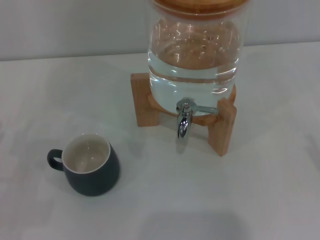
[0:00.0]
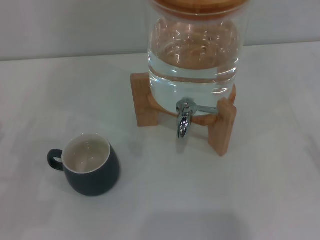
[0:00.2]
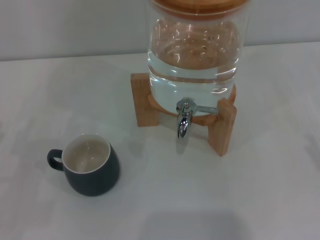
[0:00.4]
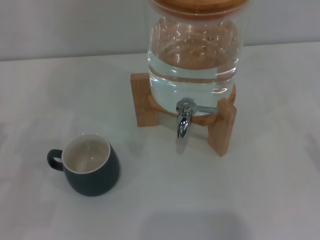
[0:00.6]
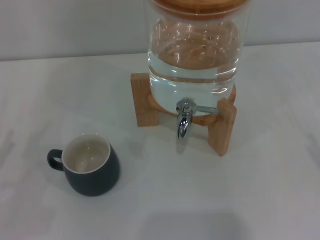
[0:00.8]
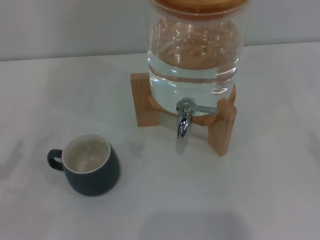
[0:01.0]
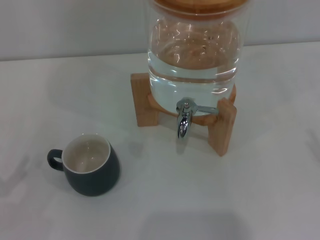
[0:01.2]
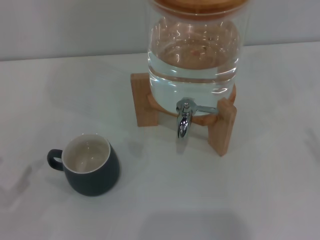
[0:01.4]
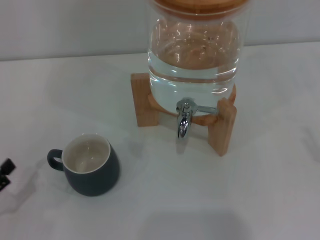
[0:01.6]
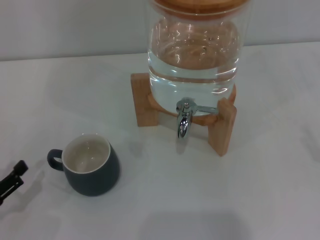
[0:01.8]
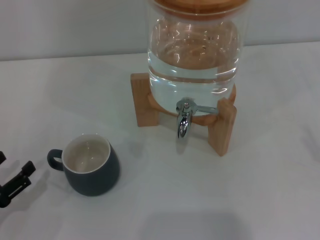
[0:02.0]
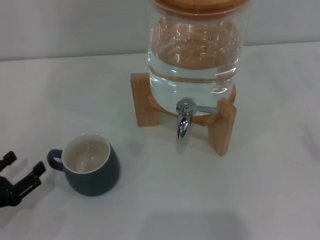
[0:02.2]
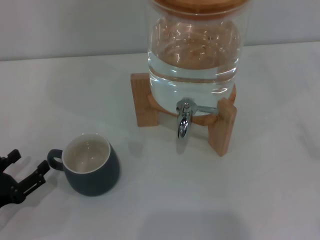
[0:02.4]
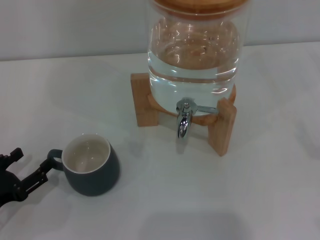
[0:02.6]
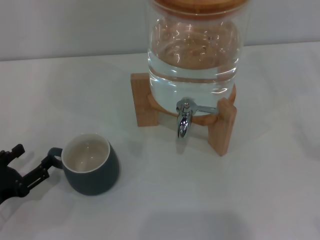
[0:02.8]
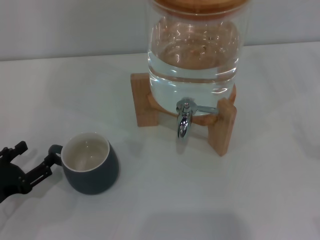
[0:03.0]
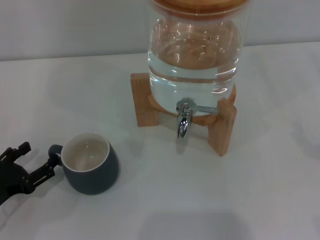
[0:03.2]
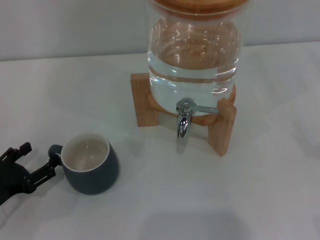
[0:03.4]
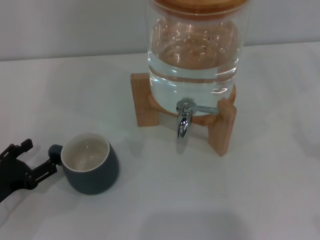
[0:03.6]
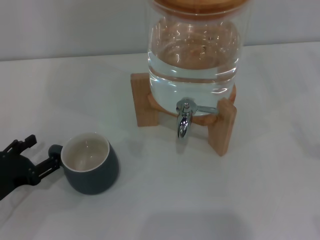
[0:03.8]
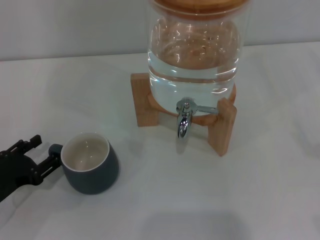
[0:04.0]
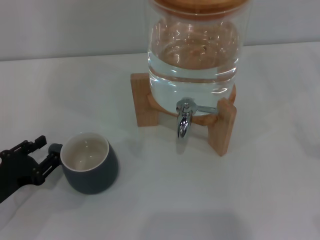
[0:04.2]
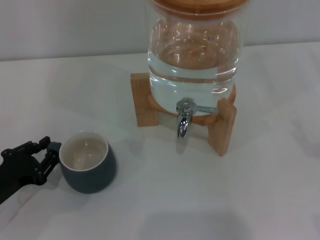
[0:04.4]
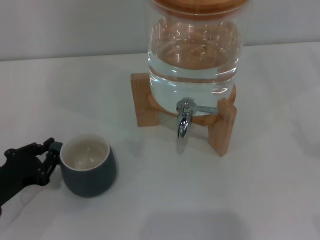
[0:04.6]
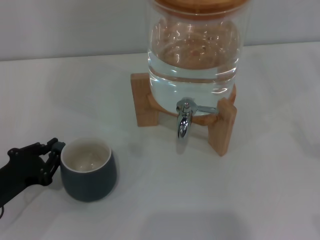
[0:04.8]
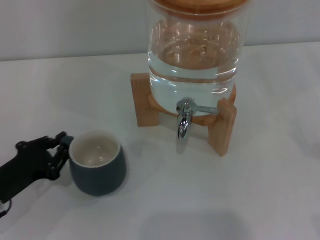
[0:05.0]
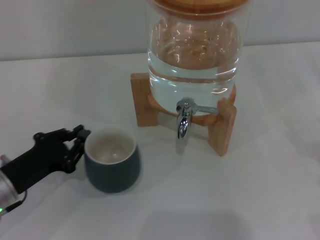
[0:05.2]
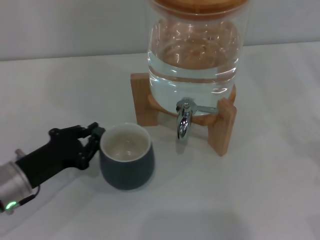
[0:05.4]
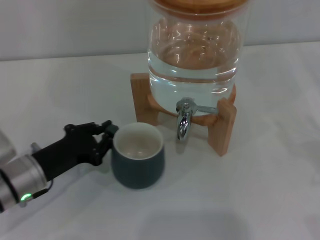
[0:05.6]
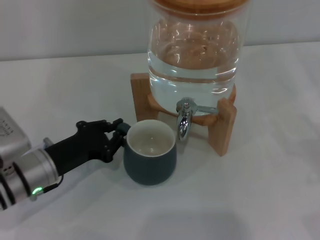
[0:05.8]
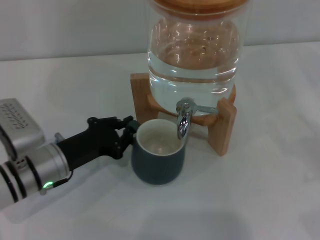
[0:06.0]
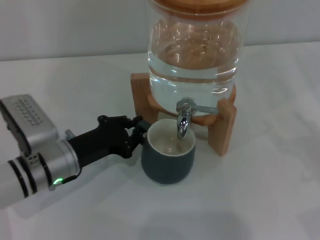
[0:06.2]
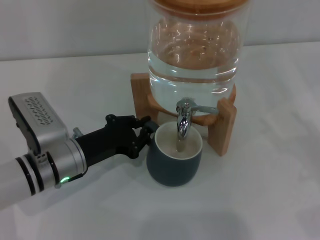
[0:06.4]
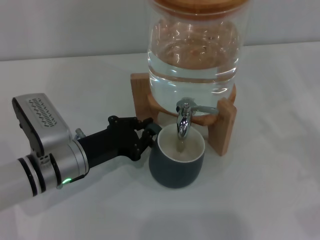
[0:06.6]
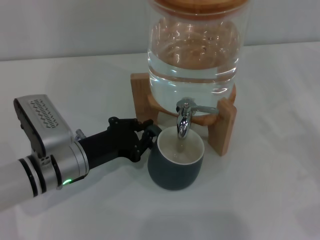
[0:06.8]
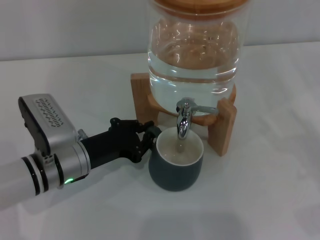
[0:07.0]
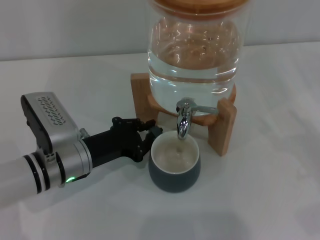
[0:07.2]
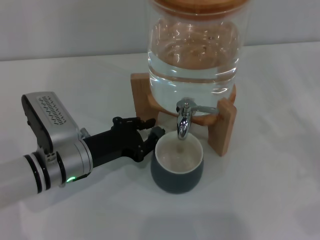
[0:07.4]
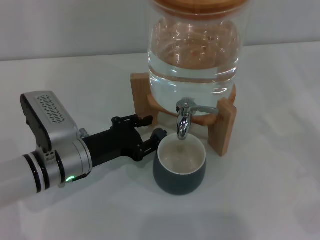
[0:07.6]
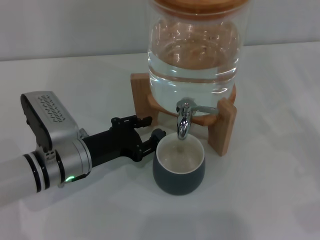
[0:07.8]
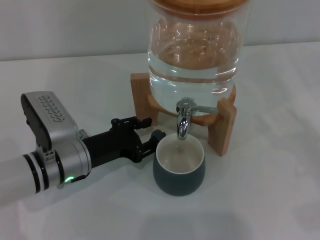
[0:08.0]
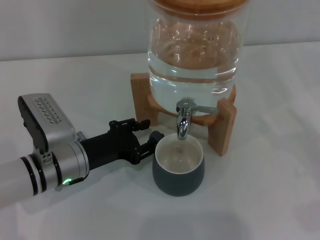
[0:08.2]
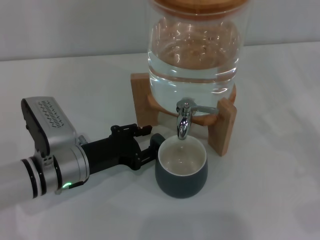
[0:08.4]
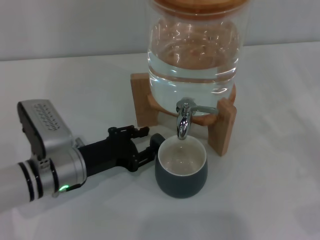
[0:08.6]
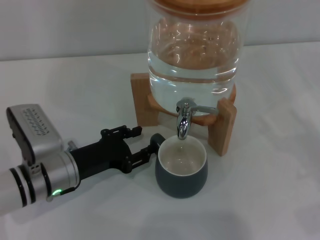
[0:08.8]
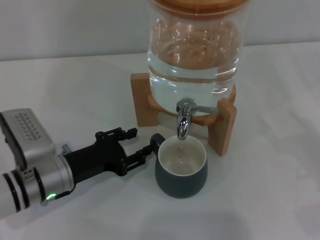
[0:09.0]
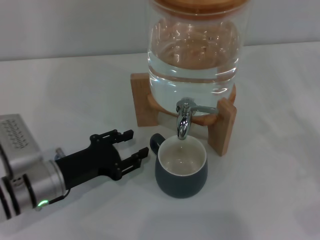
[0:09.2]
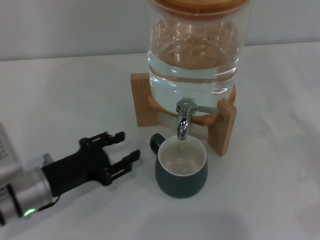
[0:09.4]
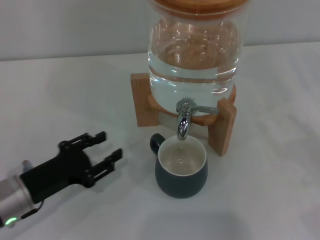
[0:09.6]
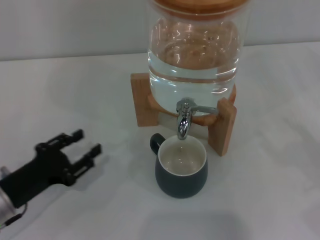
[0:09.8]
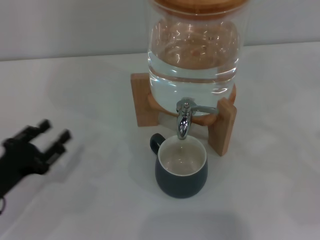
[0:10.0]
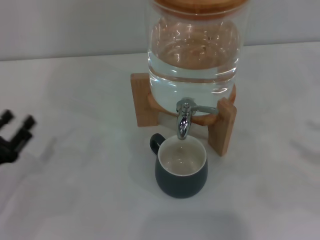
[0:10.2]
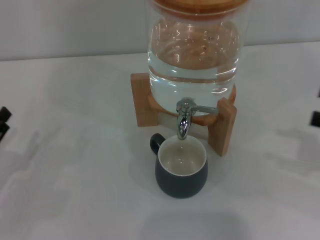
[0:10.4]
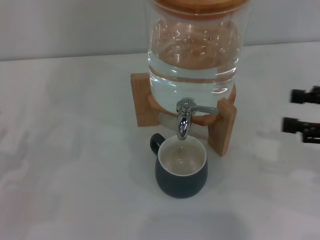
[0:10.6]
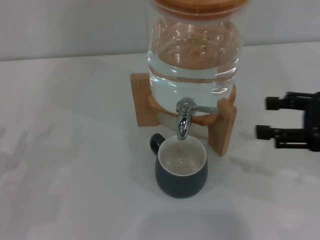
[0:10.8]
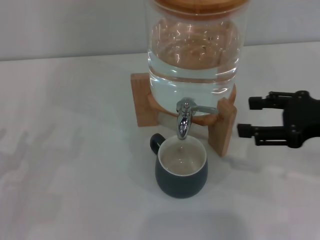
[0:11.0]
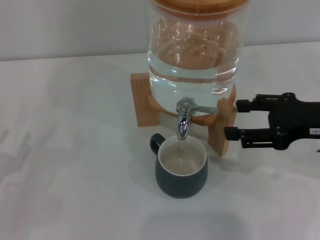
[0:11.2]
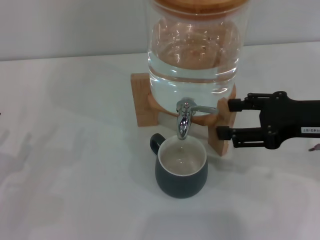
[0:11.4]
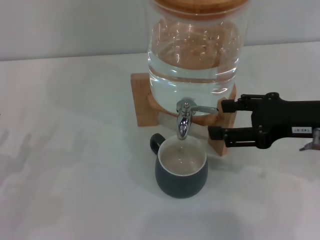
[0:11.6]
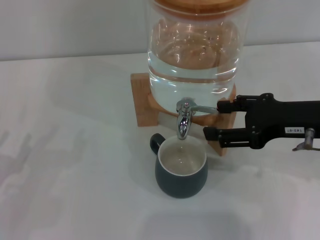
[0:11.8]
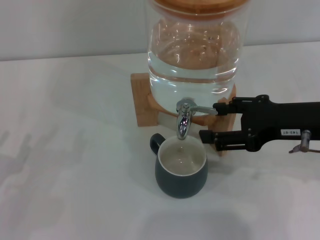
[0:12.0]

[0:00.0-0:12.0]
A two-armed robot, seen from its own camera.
Task of the whole recording: the left gripper pick up the black cup and place it horizontally under the faucet, the right gripper turn on the faucet to fill the cup, and then turn off the faucet.
Step, 0:00.0 to 0:09.2: Move the cup beneath the water dispenser nozzle with the left gripper.
0:01.6 to 0:03.0: The left gripper moves roughly 5 cm.
0:03.0 to 0:04.4: The left gripper closes up.
0:04.4 to 0:06.0: The left gripper goes some 10 cm to the right and forward, and closes up.
0:06.0 to 0:09.0: The grippers make only small movements.
0:09.0 to 0:10.4: The right gripper heads upward, covering roughly 10 cm; the left gripper shifts about 15 cm to the left and backward.
0:10.4 to 0:12.0: The right gripper moves to the left, some 15 cm.

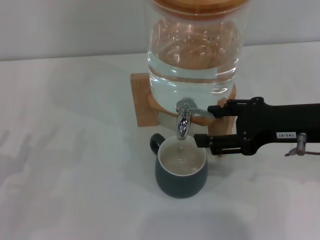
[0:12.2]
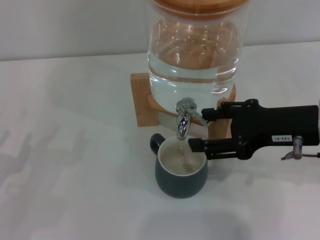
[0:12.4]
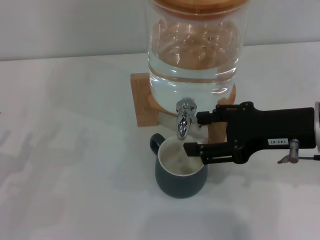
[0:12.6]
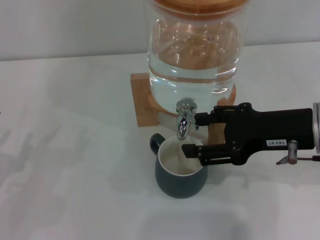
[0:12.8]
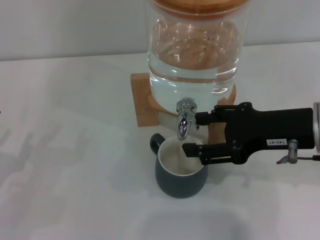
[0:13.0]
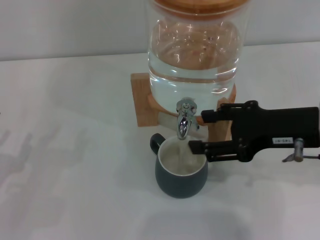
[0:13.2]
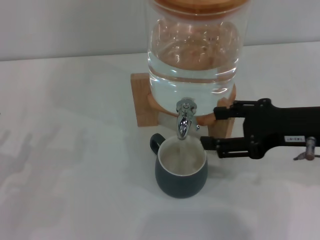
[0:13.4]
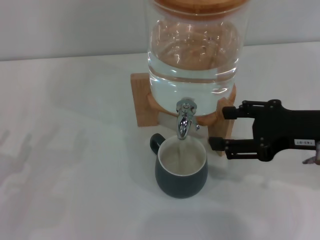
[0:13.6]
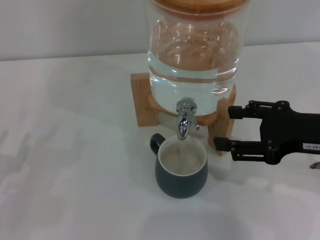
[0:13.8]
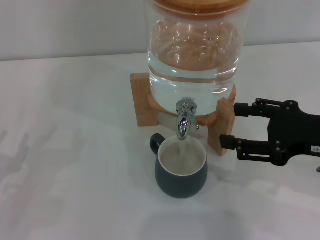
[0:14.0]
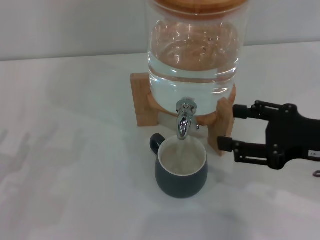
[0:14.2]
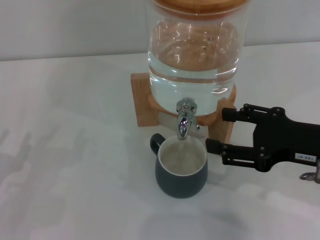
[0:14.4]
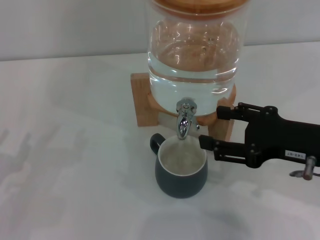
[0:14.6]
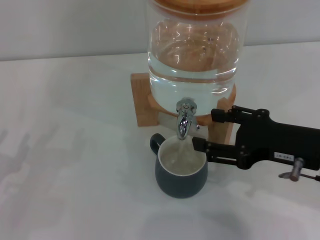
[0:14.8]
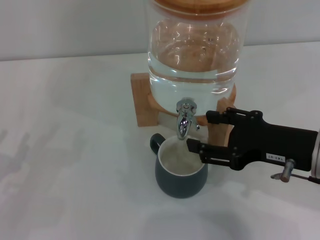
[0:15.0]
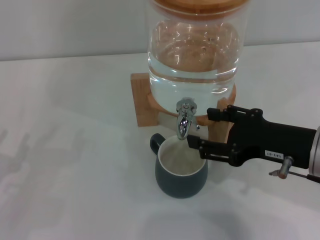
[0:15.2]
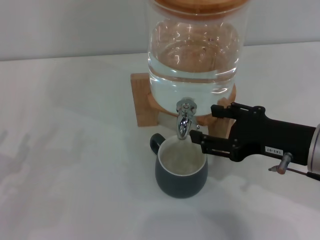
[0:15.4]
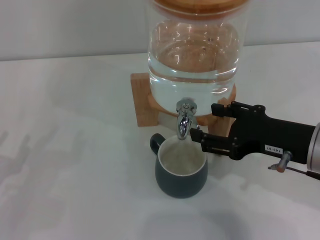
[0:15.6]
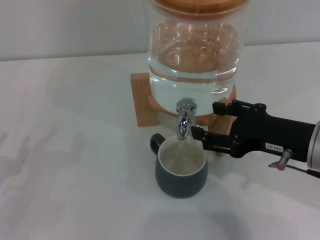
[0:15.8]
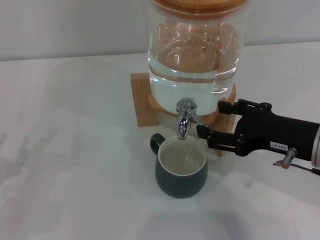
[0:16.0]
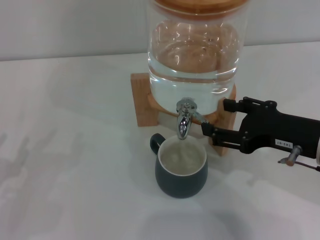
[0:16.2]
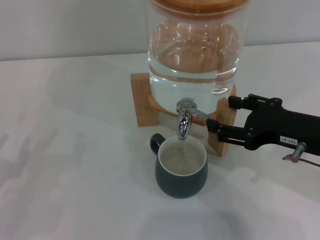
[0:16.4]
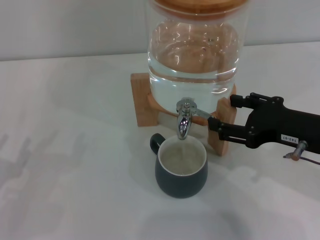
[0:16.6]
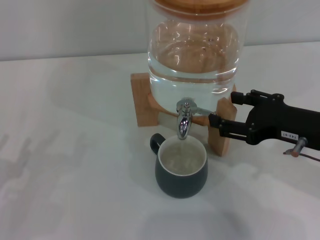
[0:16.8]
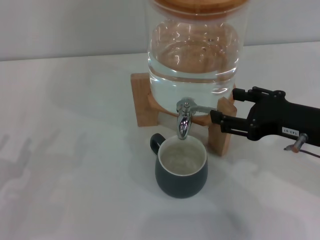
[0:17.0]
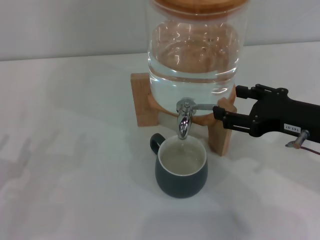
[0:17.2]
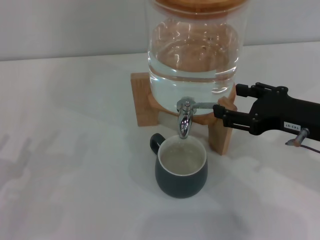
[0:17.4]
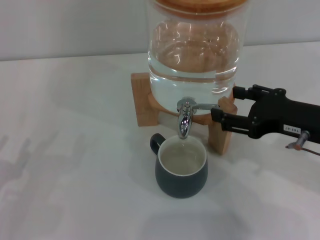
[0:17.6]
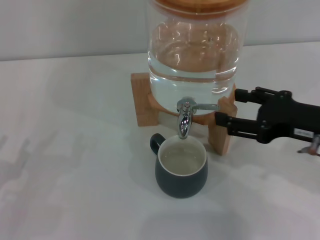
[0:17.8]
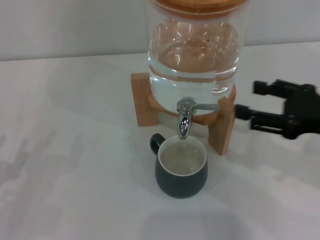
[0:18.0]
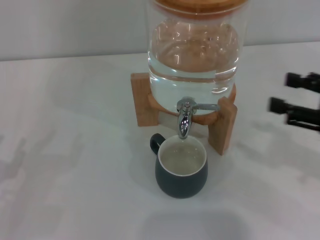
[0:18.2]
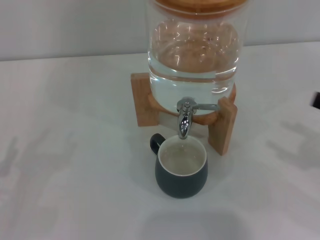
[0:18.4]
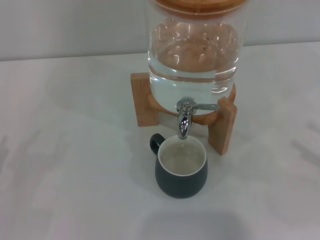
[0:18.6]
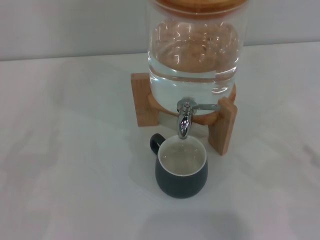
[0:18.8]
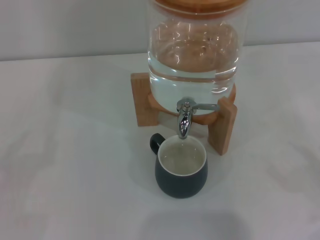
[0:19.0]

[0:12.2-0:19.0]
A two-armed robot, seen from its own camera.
Task of the whole recording: the left gripper pick up the black cup and place it horizontally under the faucet, the right gripper turn on the faucet to fill the cup, and then turn off the faucet.
Step, 0:13.6 to 0:17.6: Close the dispenser valve with the right gripper.
0:12.2 to 0:16.2: The grippers make only small movements.
0:16.2 to 0:17.6: The grippers stay close to where they were, moving slightly.
0:17.6 to 0:19.0: The right gripper travels to the right, backward and downward by about 20 cm.
